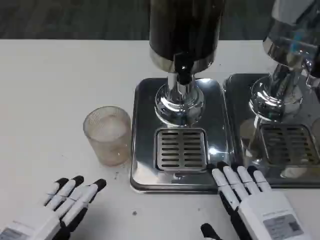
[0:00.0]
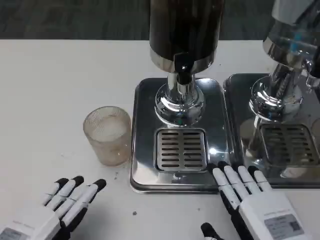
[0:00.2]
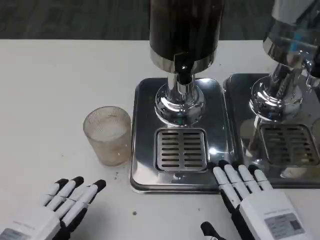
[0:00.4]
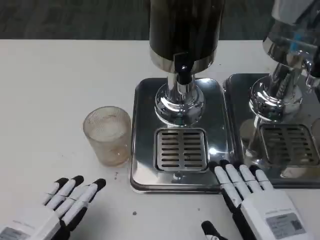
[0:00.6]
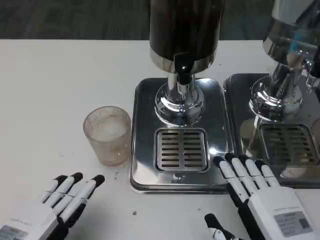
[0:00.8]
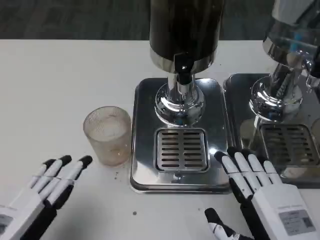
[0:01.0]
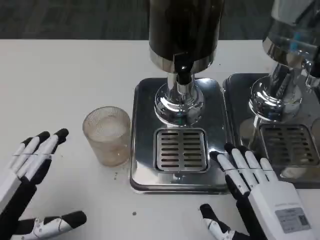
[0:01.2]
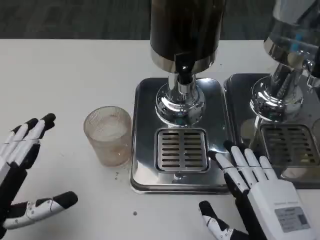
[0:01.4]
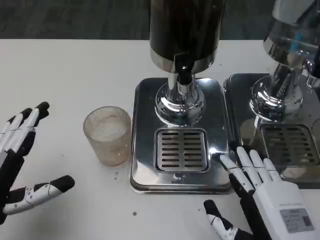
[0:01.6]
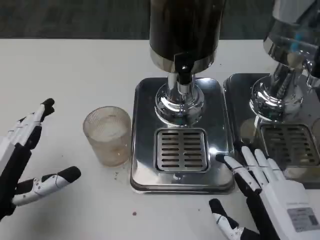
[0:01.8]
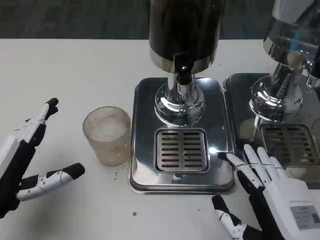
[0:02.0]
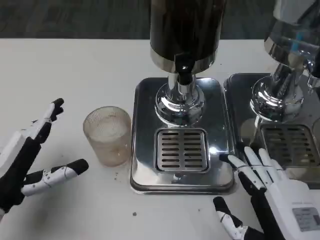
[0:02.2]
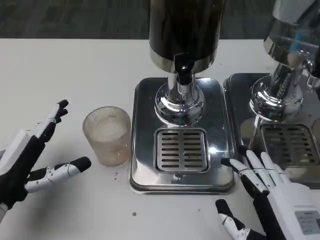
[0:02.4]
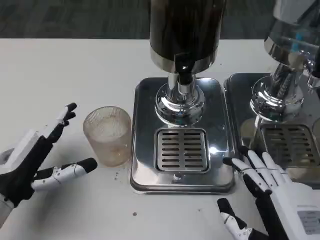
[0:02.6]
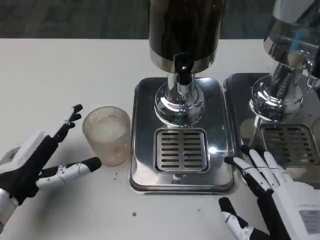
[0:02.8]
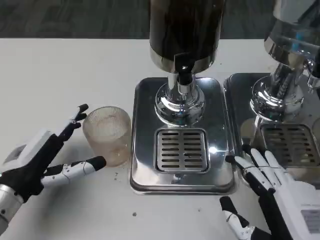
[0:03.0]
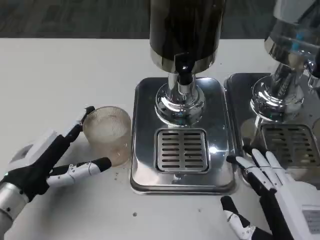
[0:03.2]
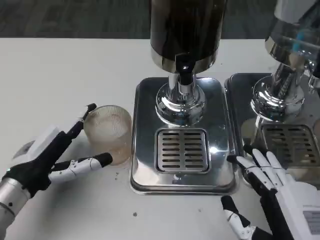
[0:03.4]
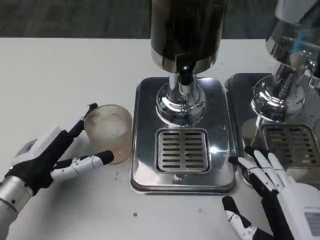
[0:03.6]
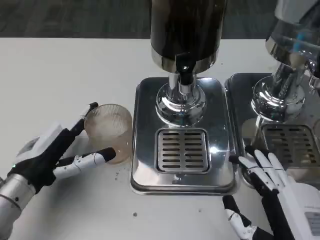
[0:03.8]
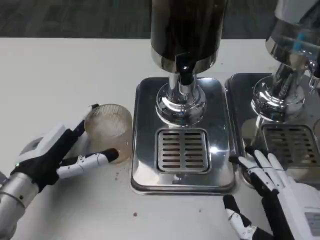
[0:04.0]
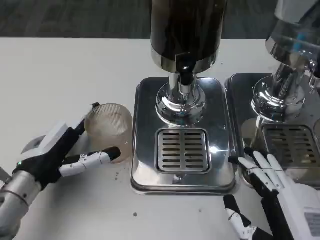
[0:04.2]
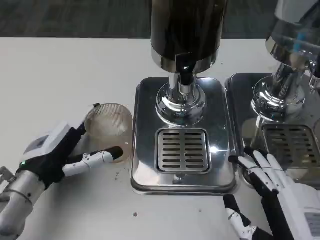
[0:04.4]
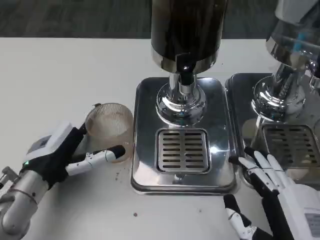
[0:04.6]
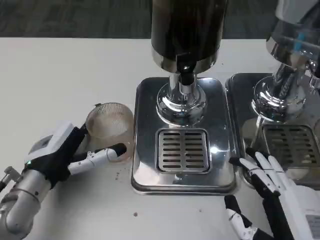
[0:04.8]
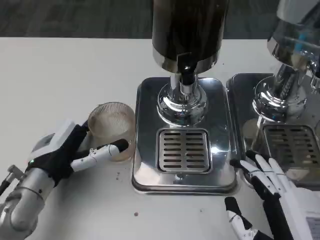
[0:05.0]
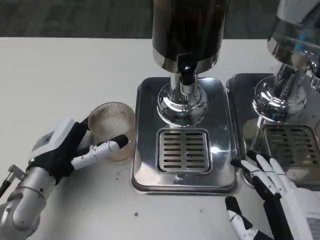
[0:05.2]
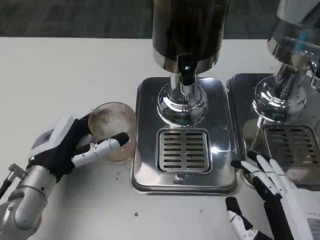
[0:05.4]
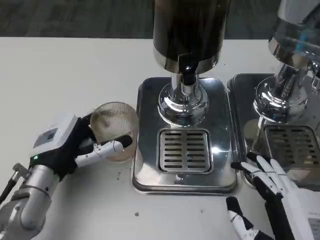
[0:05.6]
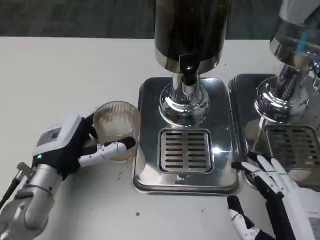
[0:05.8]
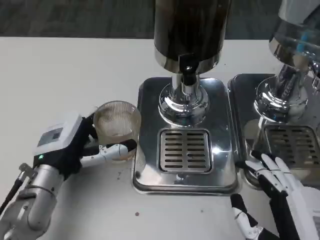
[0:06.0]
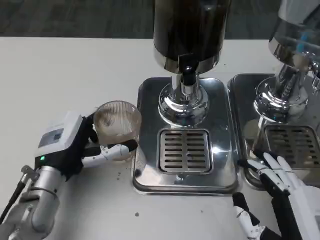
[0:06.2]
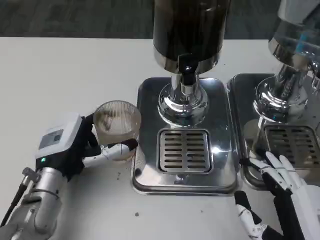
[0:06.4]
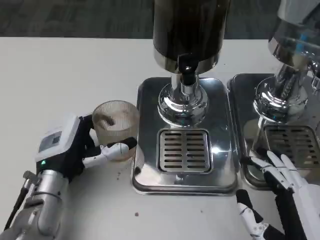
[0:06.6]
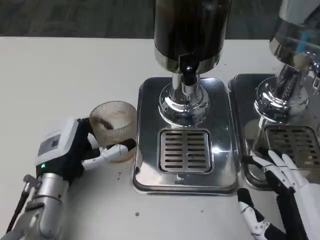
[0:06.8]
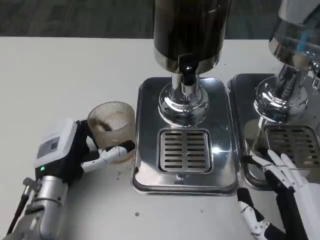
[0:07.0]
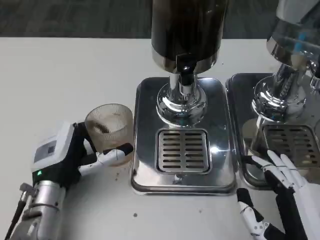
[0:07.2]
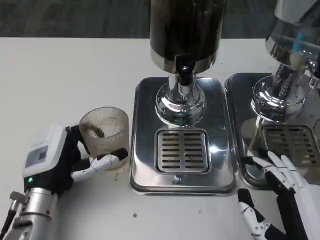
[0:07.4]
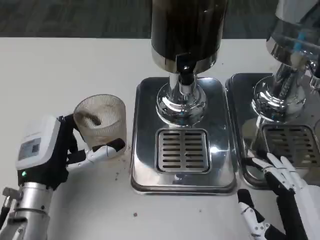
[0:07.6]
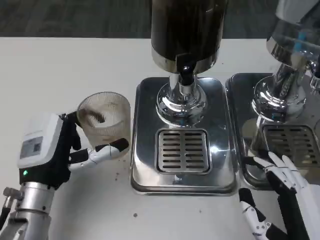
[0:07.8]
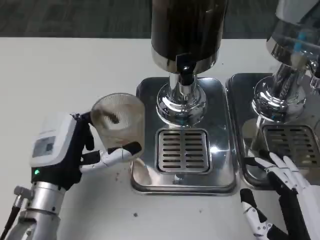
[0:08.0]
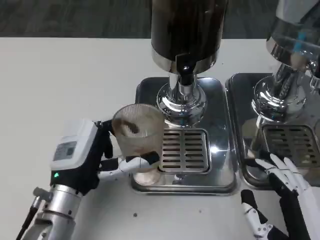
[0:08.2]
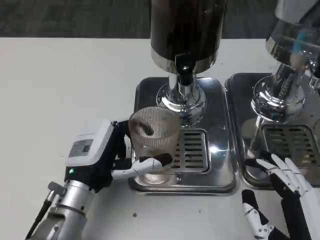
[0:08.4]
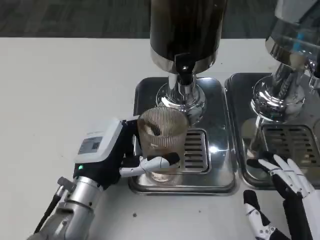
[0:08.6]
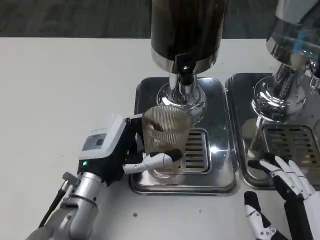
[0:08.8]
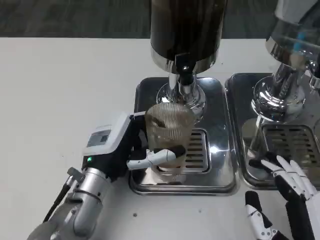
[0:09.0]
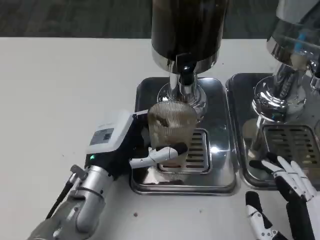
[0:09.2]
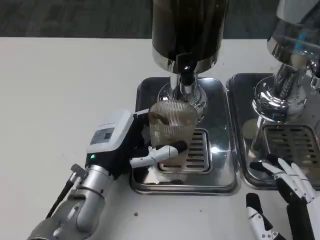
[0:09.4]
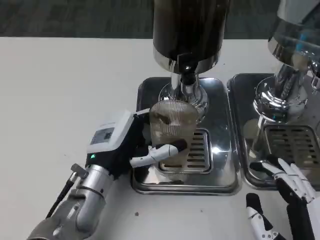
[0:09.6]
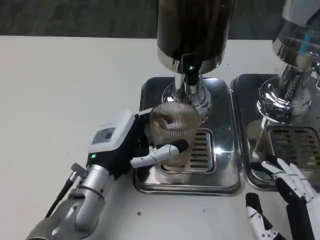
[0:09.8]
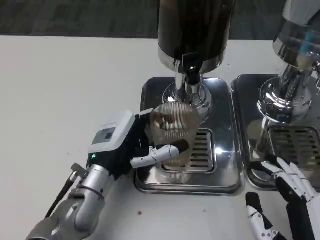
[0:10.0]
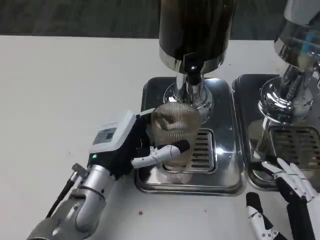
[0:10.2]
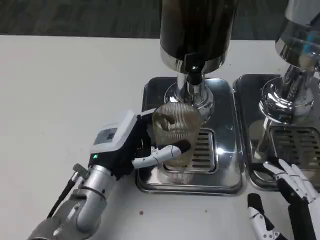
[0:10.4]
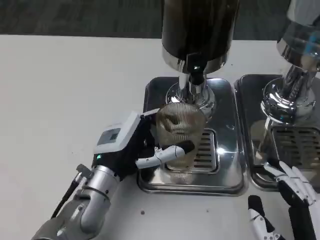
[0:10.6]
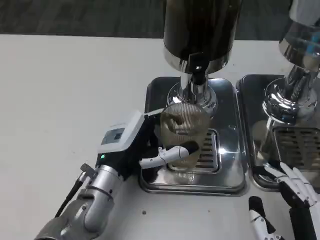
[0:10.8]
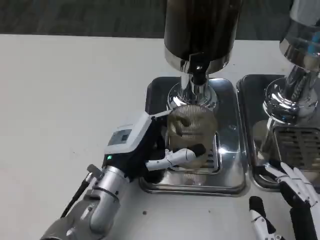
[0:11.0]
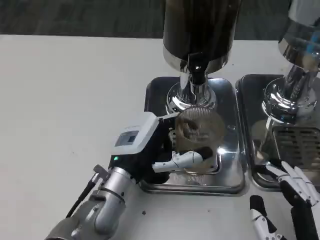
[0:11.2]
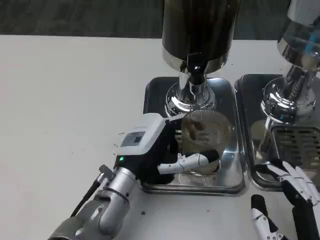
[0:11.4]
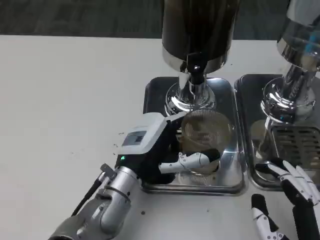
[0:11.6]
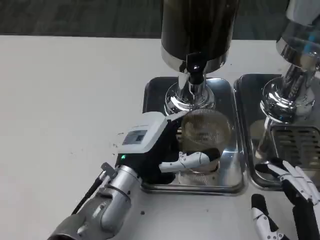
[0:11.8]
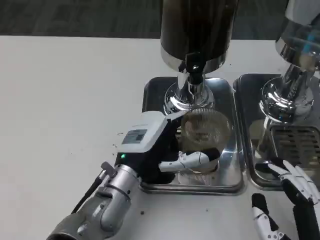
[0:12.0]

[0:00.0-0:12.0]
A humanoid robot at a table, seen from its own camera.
Task of the whole recording: Grasp the cup under the faucet to collect the drink, then remove the cup.
0:00.0 to 0:01.6: The left hand moves forward, some 5 cm.
0:01.6 to 0:03.0: The left hand heads forward, covering approximately 5 cm.
0:03.0 to 0:04.4: The hands make only small movements.
0:07.6 to 0:09.0: The left hand heads to the right, covering about 5 cm.
0:10.4 to 0:12.0: The hands make only small movements.

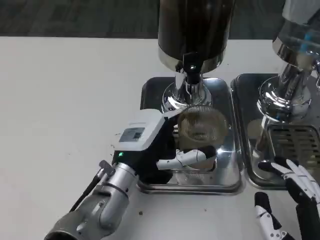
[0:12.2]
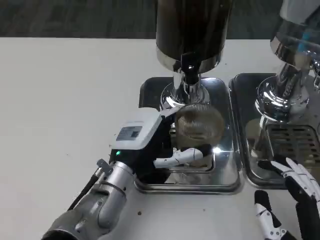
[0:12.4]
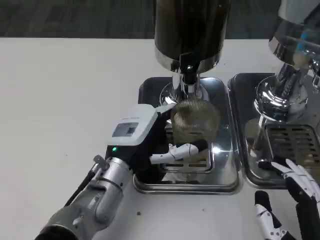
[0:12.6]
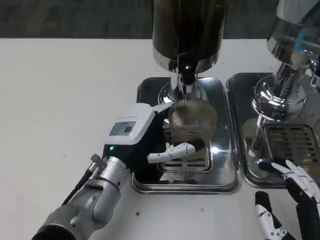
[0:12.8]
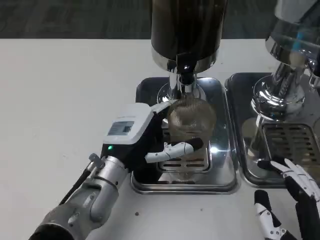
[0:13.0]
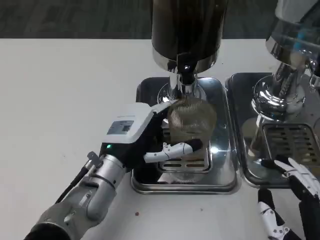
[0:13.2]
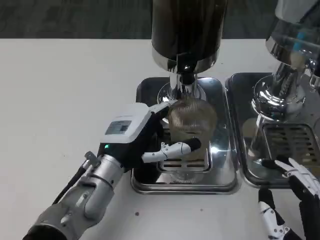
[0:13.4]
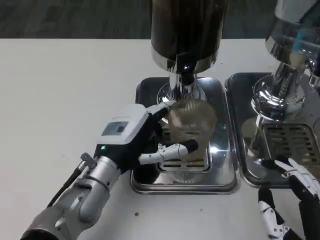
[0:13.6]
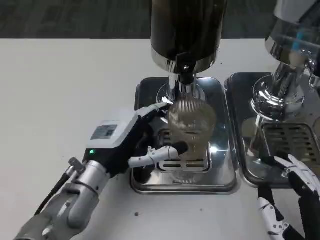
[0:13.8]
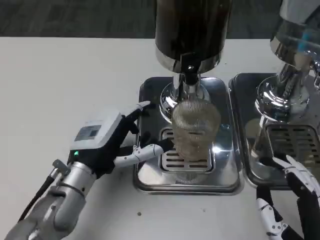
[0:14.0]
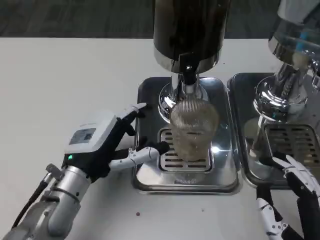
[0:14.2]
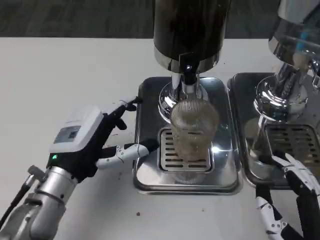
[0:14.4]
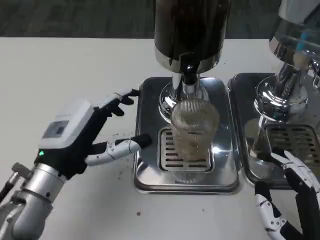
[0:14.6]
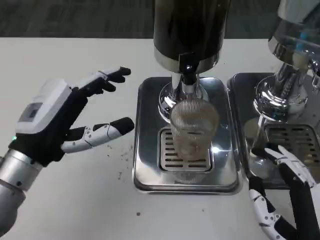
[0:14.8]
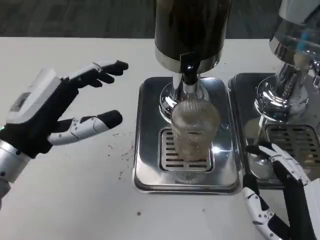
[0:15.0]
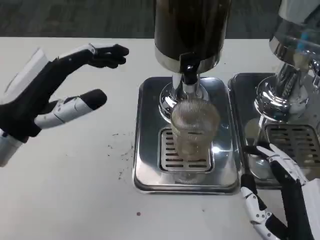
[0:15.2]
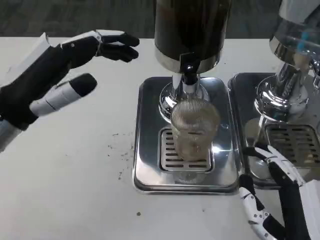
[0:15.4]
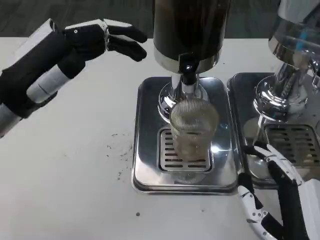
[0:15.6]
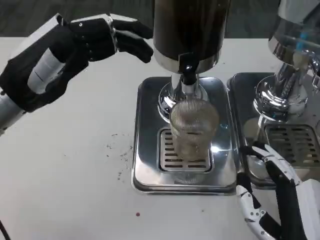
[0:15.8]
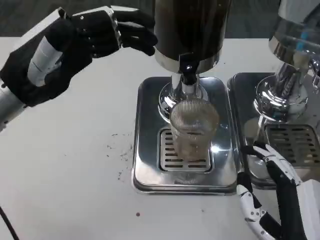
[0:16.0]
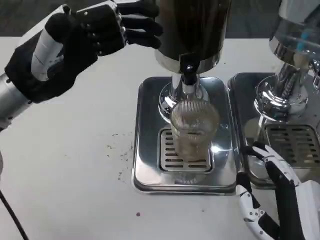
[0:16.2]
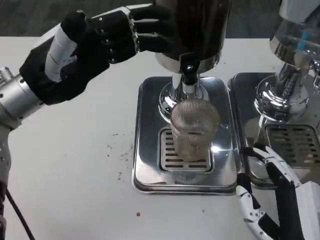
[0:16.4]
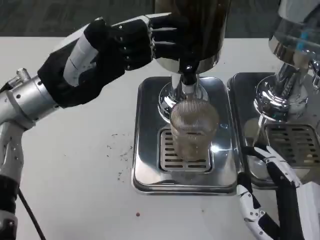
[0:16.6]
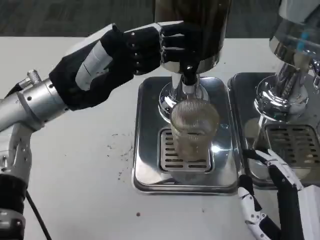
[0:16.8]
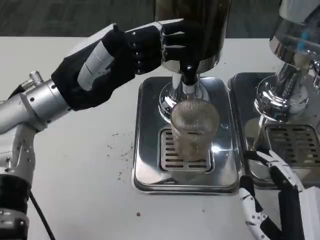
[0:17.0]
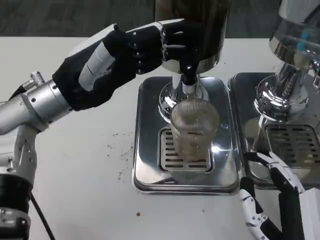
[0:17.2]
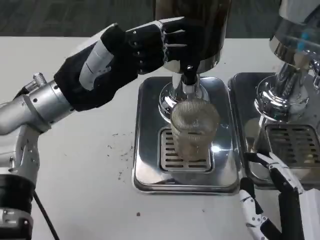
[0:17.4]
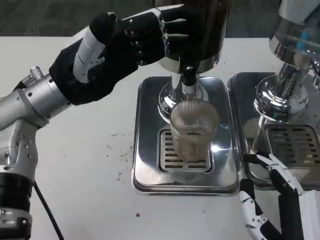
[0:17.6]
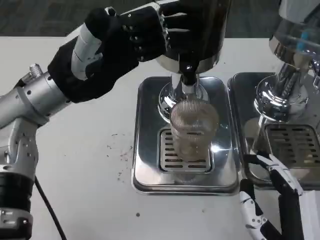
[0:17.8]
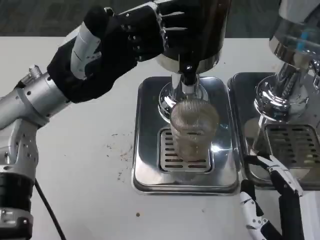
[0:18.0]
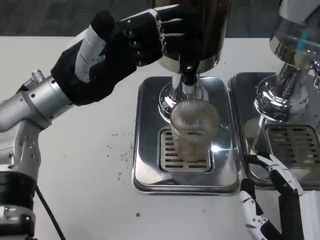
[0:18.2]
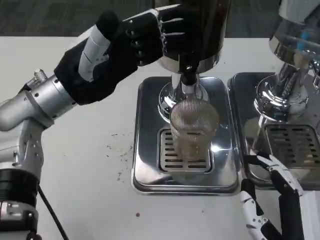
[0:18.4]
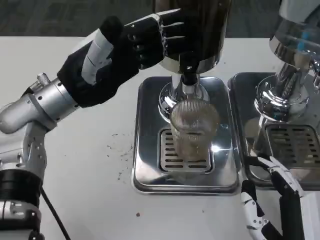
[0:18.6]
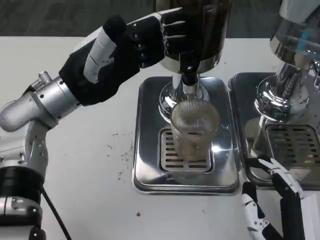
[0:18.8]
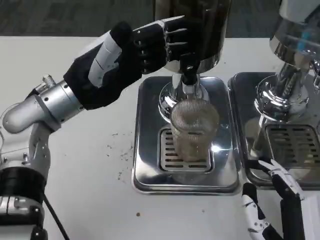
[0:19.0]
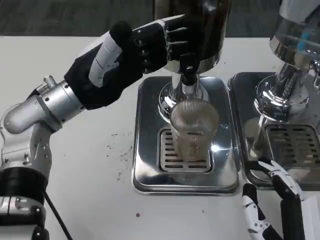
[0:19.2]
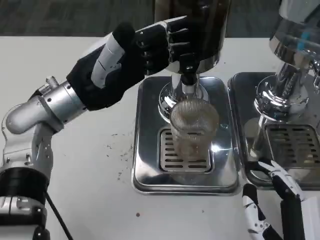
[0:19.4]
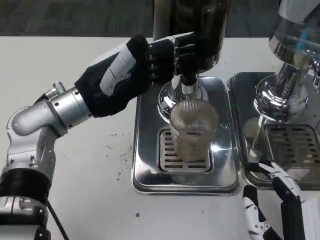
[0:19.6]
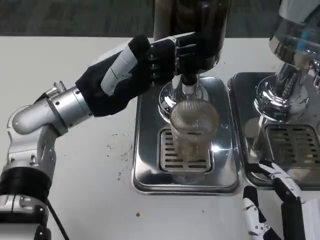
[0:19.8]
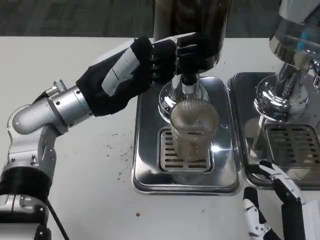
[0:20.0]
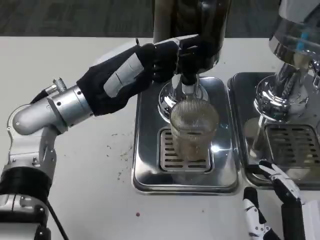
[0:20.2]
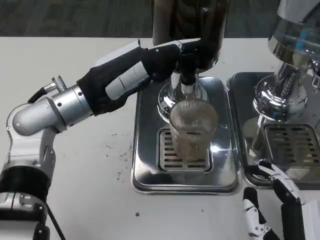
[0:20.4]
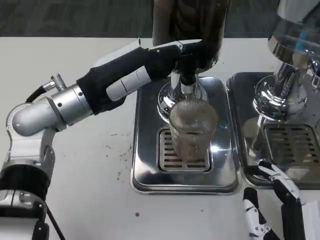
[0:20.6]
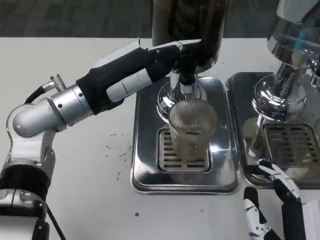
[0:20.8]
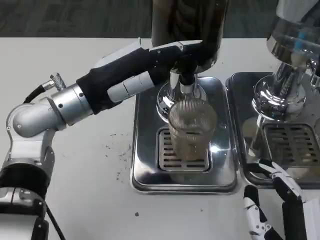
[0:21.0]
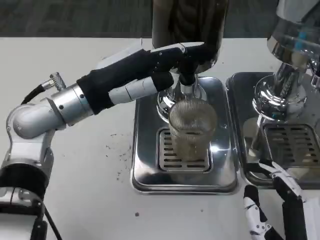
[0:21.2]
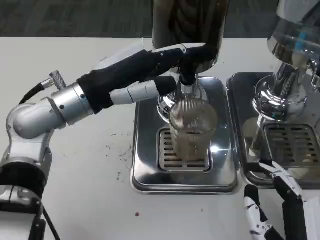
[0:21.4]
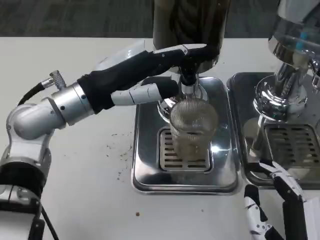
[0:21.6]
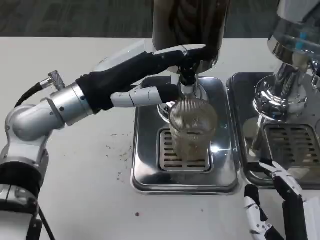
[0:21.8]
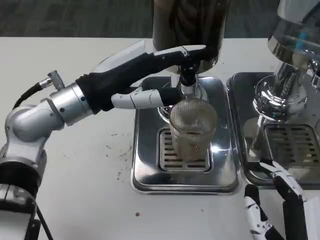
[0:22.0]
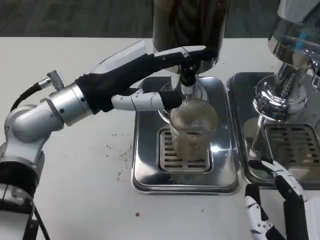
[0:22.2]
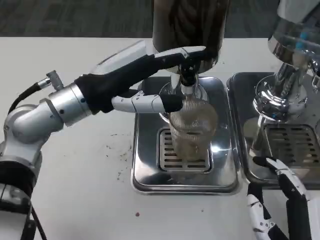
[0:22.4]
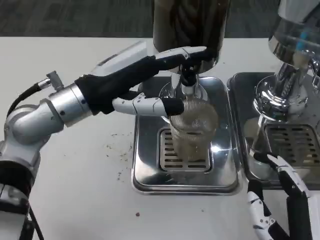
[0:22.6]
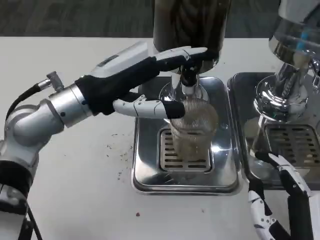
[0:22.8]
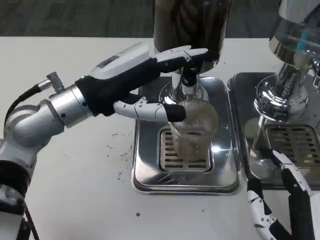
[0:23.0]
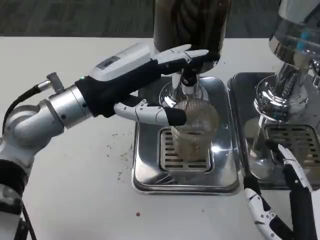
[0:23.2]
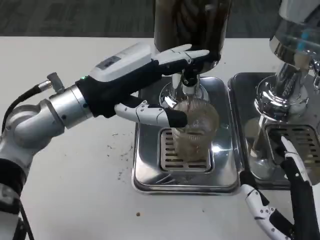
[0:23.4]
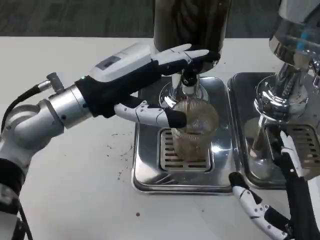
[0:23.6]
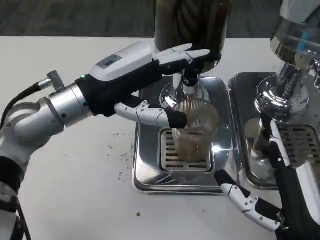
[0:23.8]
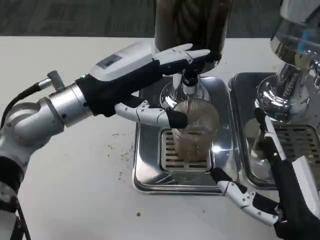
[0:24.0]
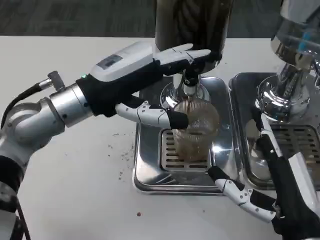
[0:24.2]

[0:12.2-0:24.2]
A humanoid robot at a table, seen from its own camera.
Task of the whole recording: Grasp the cup under the faucet to collect the drink, then remove the cup.
0:13.8 to 0:15.2: The left hand is displaced upward and to the left by approximately 15 cm.
0:15.2 to 0:16.6: The left hand goes approximately 5 cm forward.
0:16.6 to 0:18.2: There are only small adjustments of the hands.
0:21.2 to 0:22.6: The hands stay close to where they were, moving slightly.
0:22.6 to 0:24.2: The right hand moves about 5 cm.
